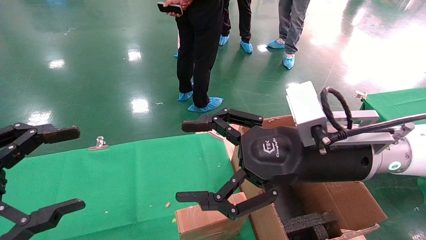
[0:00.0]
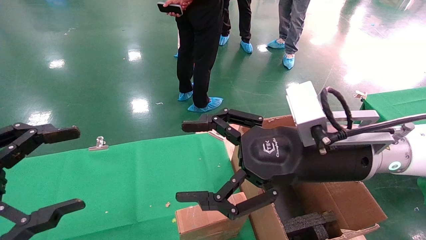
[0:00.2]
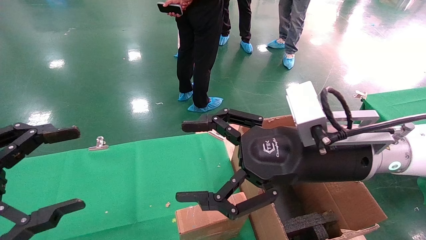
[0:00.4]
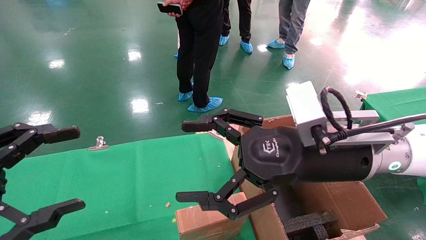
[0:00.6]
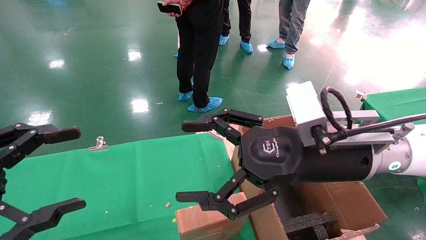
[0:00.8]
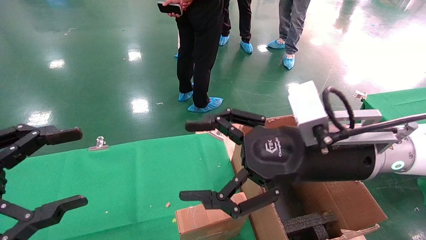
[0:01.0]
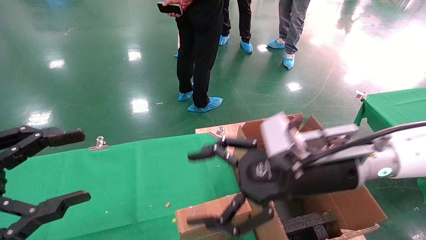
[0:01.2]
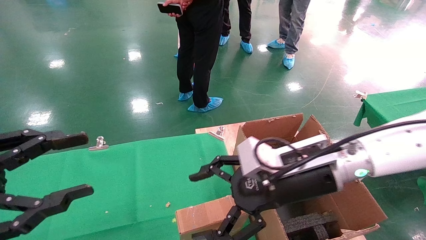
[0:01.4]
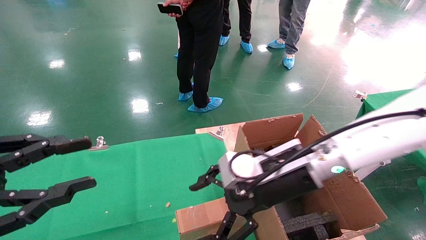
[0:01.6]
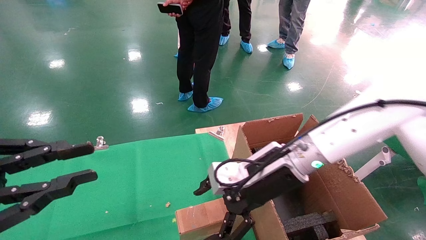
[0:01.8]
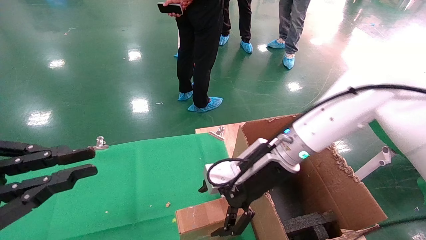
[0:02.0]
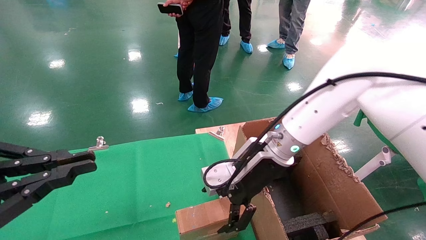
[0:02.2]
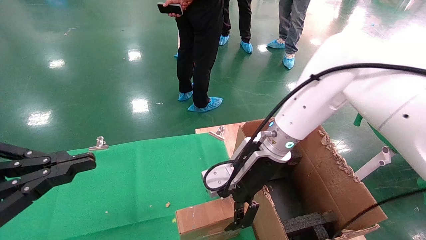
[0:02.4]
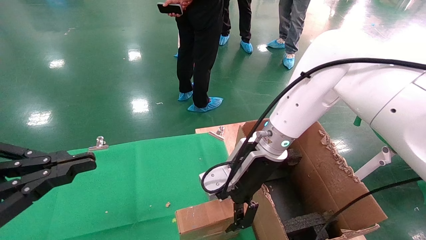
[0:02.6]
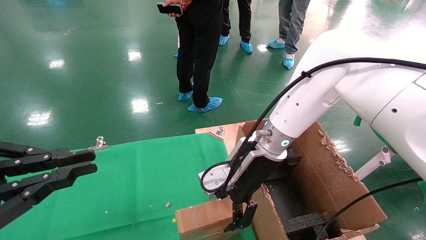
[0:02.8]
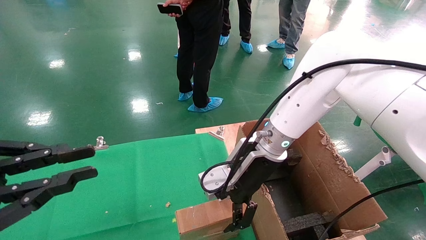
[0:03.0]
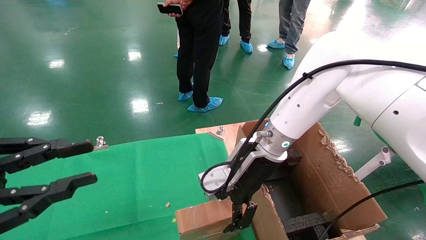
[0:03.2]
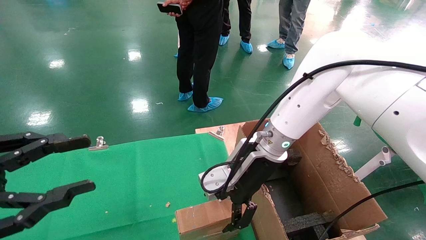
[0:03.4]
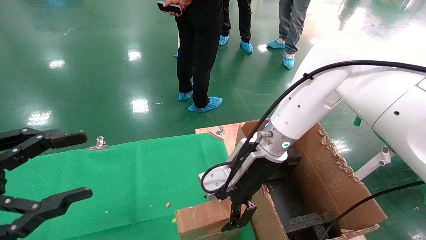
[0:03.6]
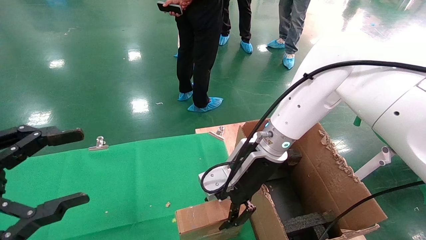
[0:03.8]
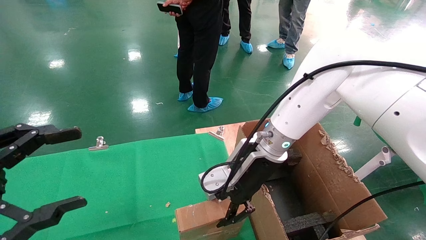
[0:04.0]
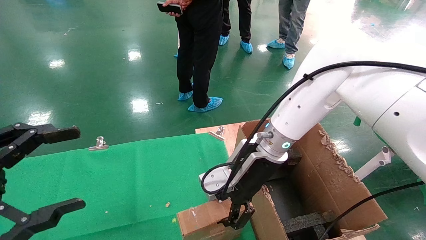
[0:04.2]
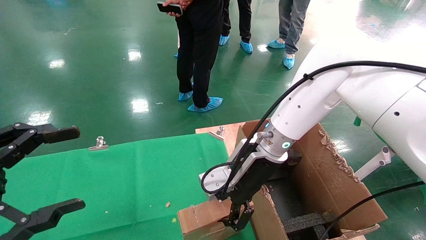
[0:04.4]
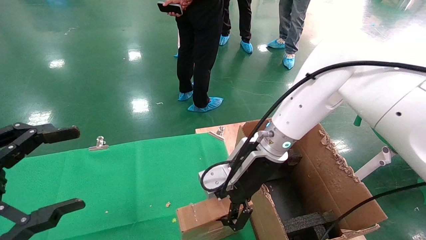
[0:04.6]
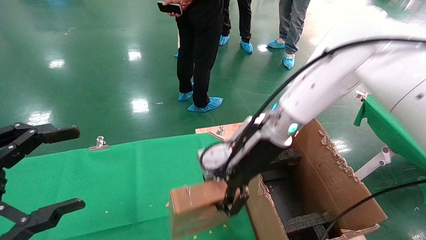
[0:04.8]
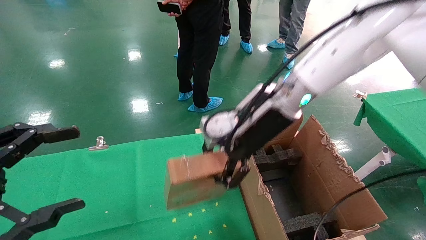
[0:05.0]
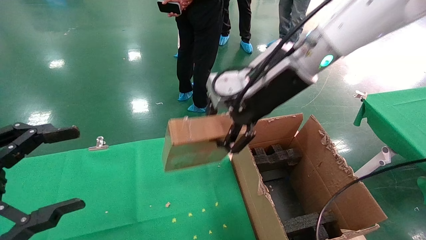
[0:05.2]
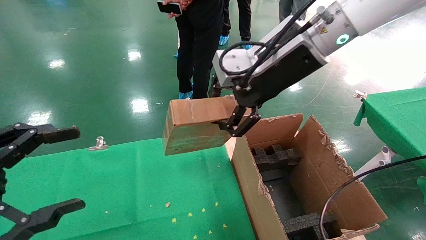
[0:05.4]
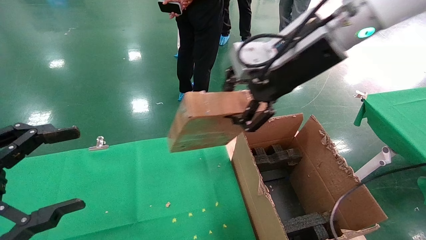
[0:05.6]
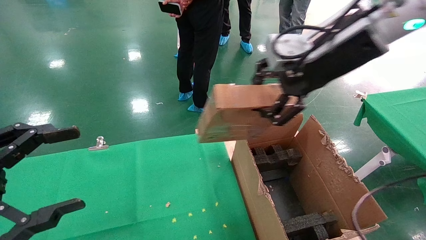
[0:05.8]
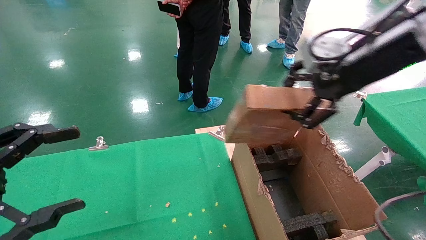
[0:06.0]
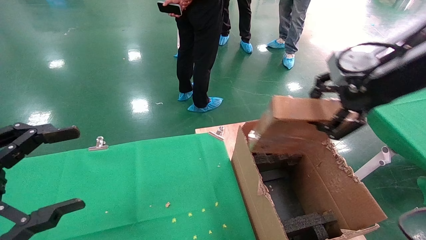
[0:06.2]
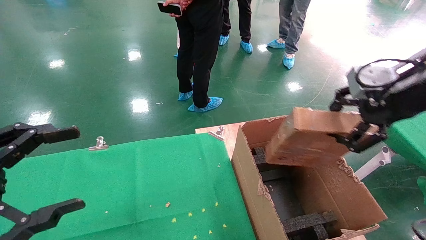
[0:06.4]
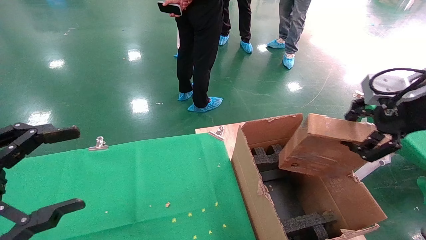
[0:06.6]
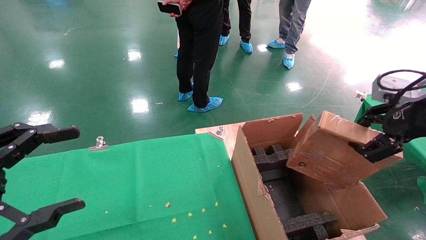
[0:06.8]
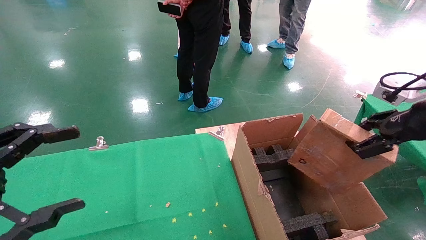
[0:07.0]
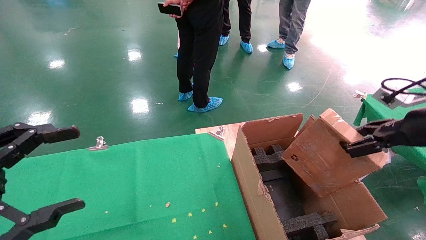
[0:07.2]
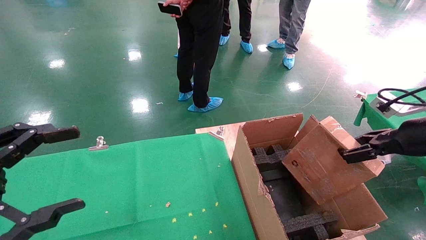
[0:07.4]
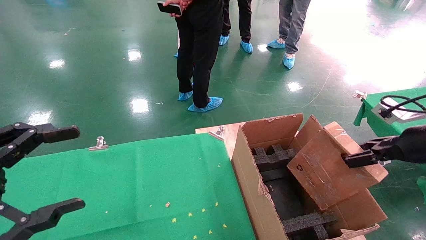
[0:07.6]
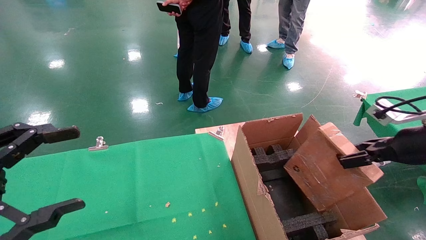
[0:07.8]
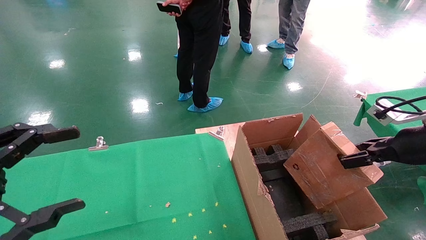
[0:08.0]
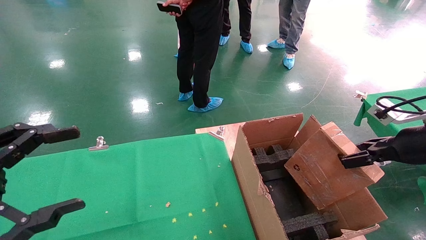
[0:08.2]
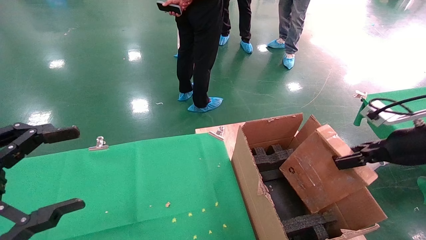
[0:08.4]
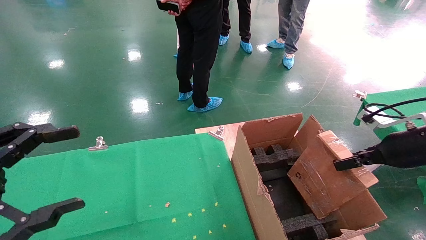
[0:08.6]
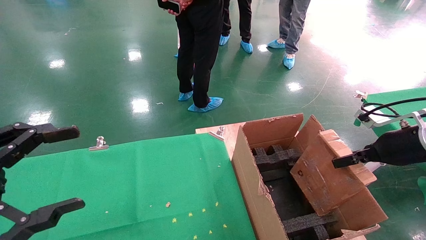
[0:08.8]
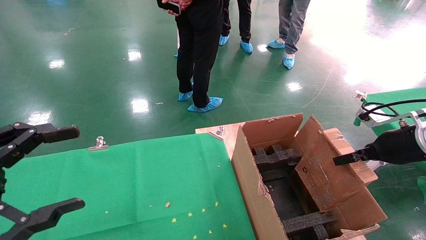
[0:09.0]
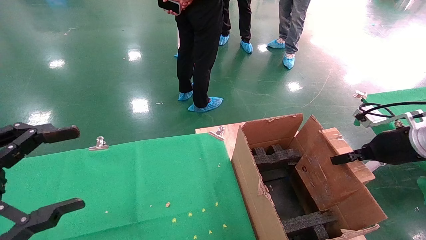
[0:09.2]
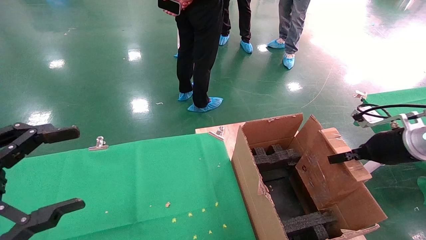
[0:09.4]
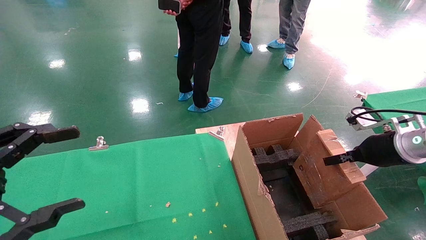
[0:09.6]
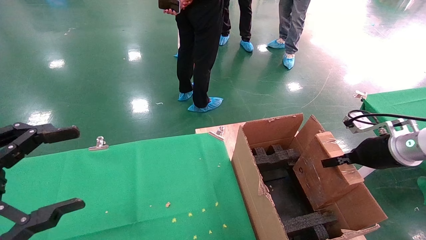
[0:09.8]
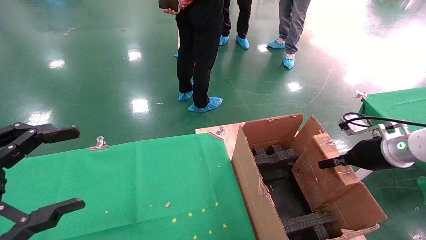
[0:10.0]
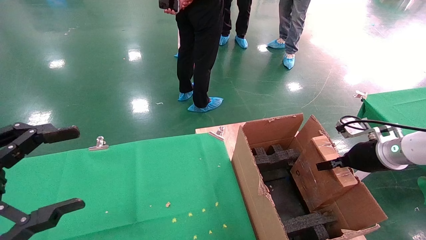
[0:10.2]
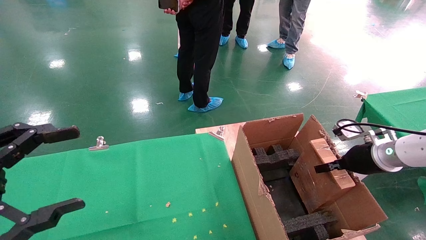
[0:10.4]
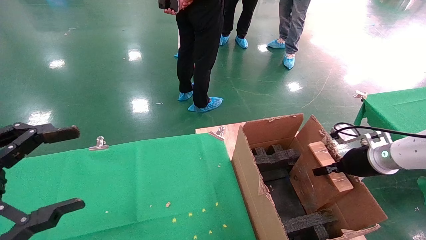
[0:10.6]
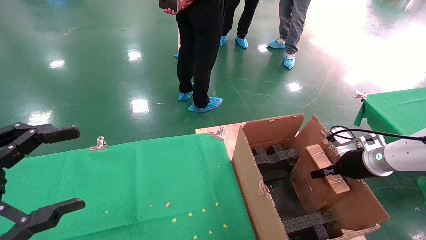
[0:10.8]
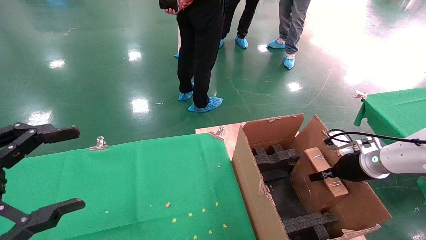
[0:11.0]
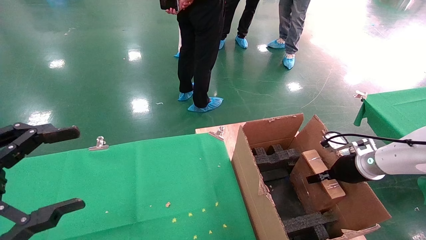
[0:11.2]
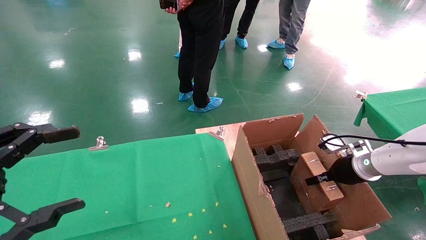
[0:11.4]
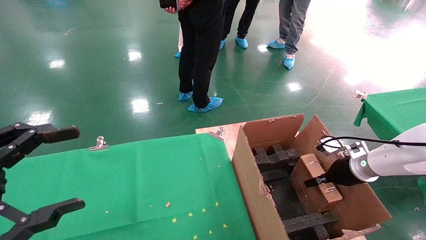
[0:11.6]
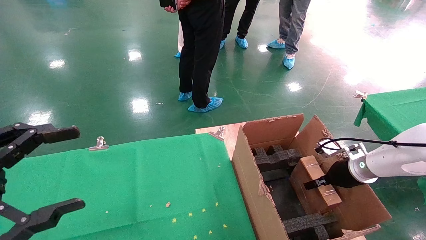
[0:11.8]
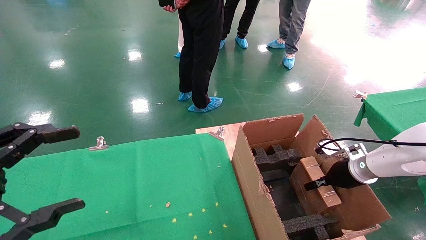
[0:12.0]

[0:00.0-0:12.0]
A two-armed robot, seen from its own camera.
Task of the whole recording: using a robotic arm to pick up a cardboard box and palace it the carton.
Step, 0:01.0 to 0:04.0: Pick up the mouse and the power cord paper box.
0:00.0 to 0:01.6: The left gripper closes; the right gripper travels forward and downward by approximately 5 cm.
0:01.6 to 0:03.0: The right gripper is displaced forward by about 5 cm. The left gripper closes.
0:03.0 to 0:04.4: The left gripper opens its fingers. The right gripper closes up.
0:04.4 to 0:06.0: The right gripper travels upward, to the right and backward by approximately 25 cm.
0:06.0 to 0:07.6: The right gripper shifts approximately 25 cm to the right and downward.
0:07.6 to 0:09.0: The right gripper changes place by approximately 5 cm.
0:09.0 to 0:10.4: The right gripper heads downward and forward, covering roughly 10 cm.
0:10.4 to 0:12.0: The right gripper heads downward, covering some 5 cm.

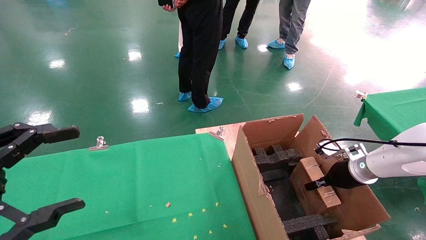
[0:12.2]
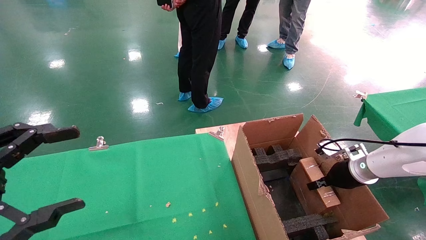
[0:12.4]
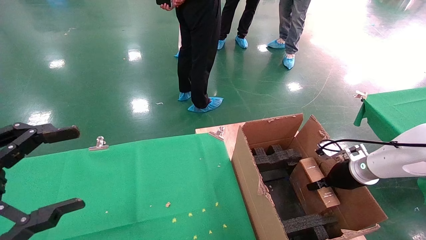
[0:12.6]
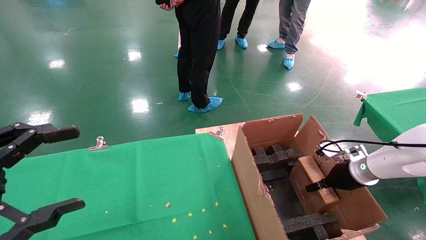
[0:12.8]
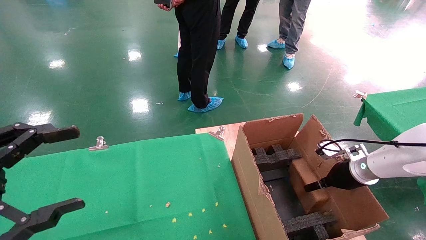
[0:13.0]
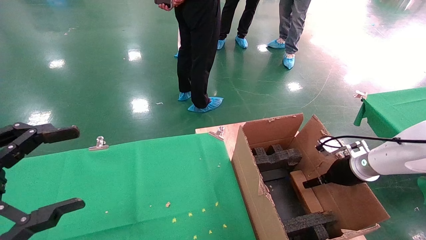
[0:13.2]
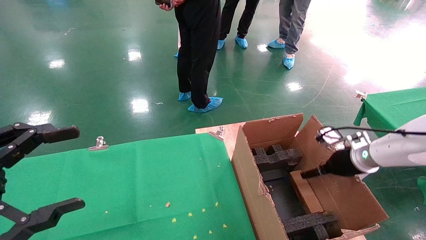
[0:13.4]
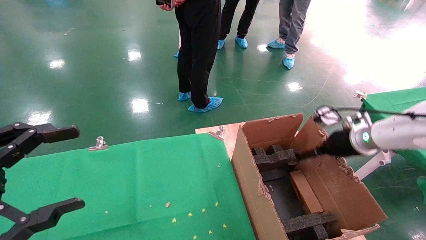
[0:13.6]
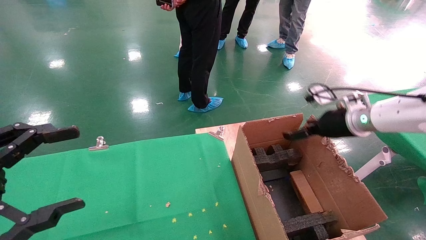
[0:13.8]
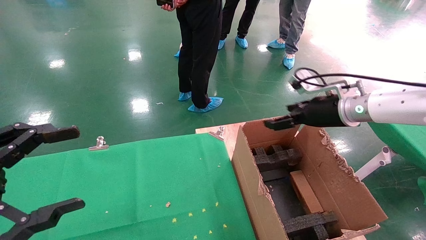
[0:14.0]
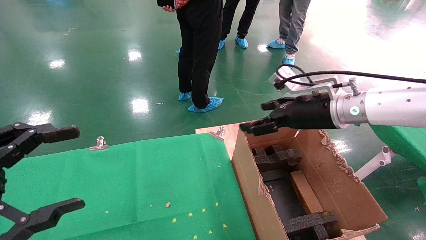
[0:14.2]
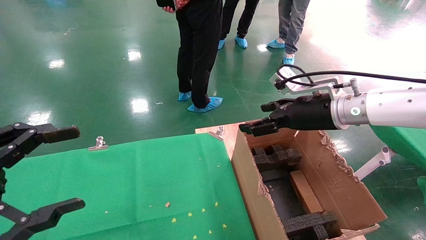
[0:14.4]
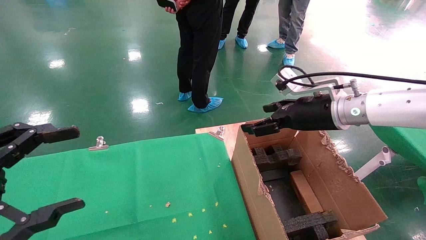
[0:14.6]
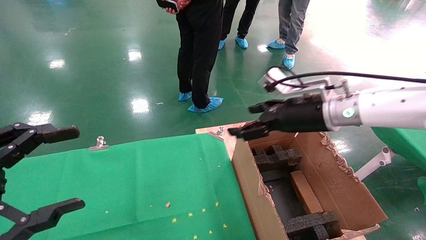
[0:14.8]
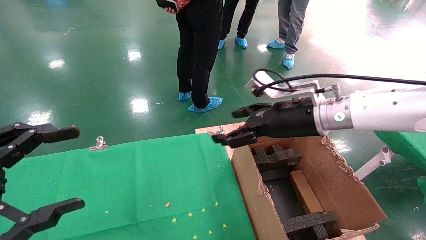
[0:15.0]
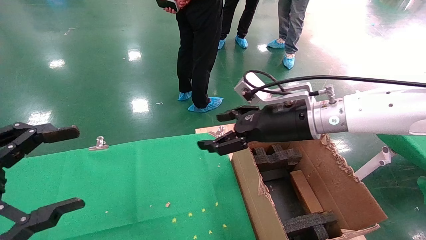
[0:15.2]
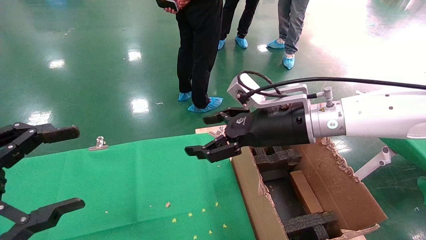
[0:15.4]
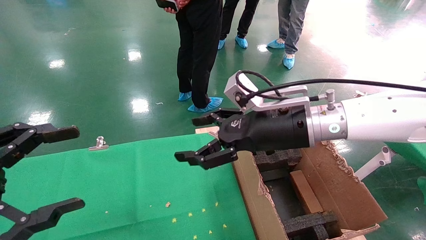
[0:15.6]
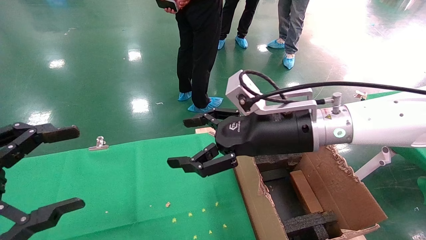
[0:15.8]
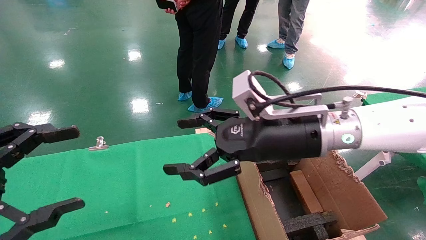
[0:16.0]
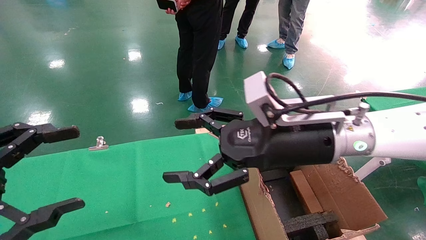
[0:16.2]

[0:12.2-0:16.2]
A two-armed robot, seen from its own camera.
Task of the whole recording: using a robotic arm to pick up a cardboard box and palace it the carton.
0:12.2 to 0:13.6: The right gripper heads upward, covering some 10 cm, and opens up.
0:13.6 to 0:14.8: The right gripper travels to the left and upward by approximately 20 cm.
0:14.8 to 0:16.2: The right gripper moves to the left and backward, about 10 cm.
